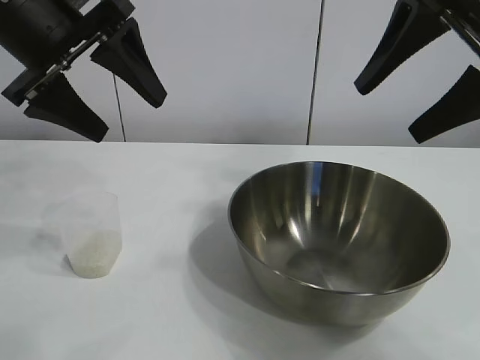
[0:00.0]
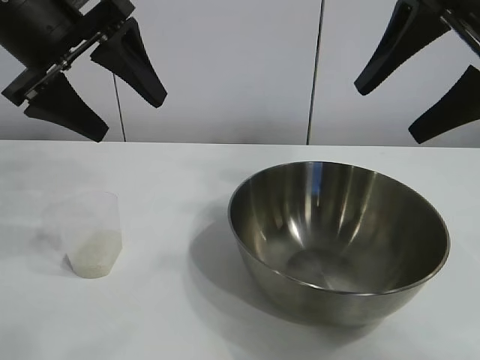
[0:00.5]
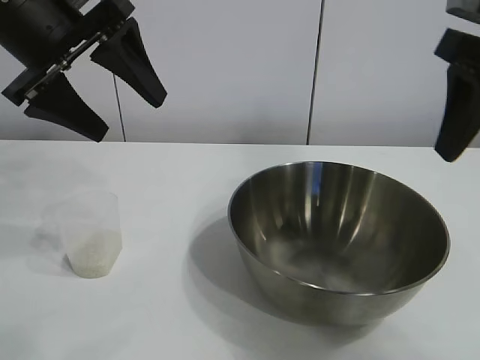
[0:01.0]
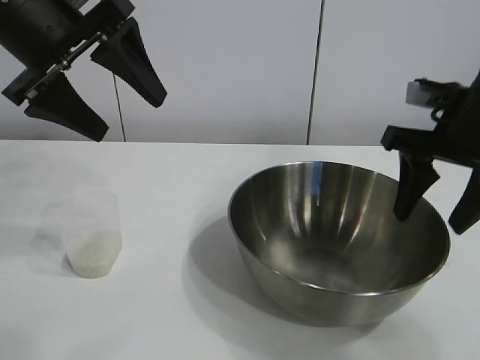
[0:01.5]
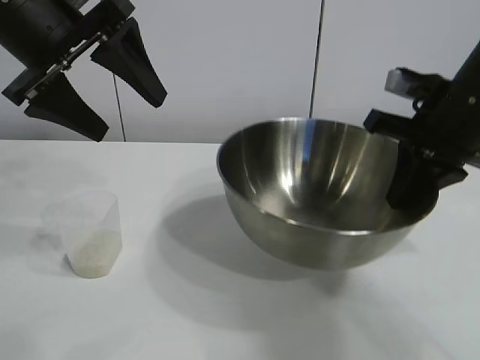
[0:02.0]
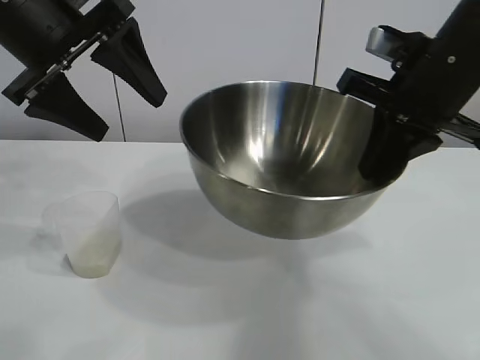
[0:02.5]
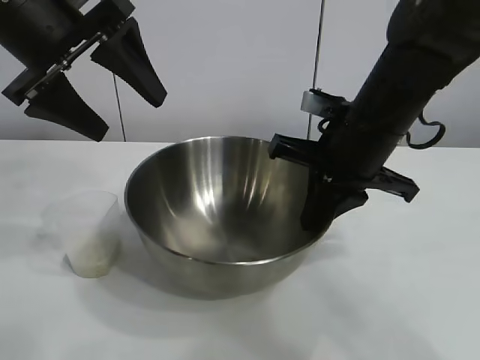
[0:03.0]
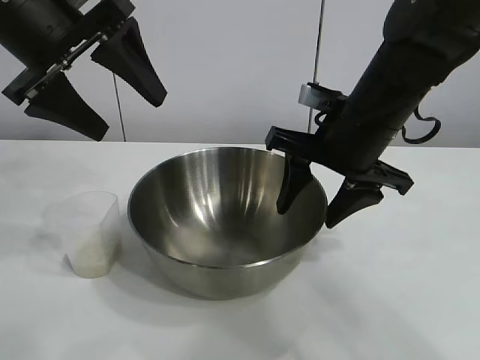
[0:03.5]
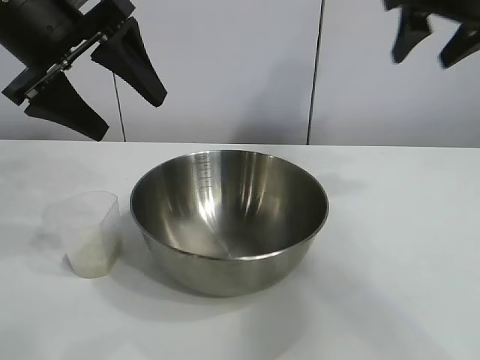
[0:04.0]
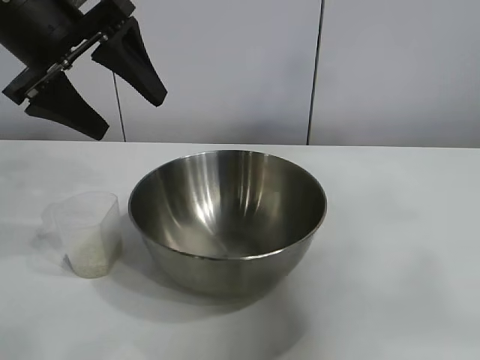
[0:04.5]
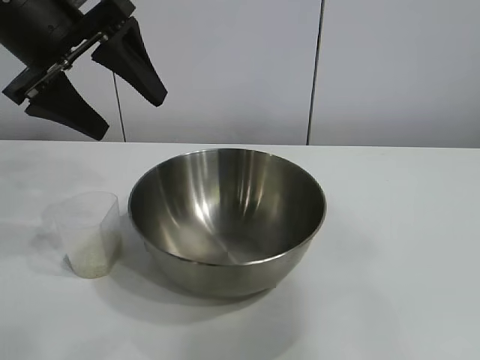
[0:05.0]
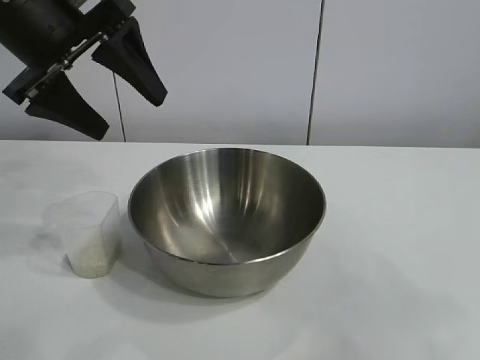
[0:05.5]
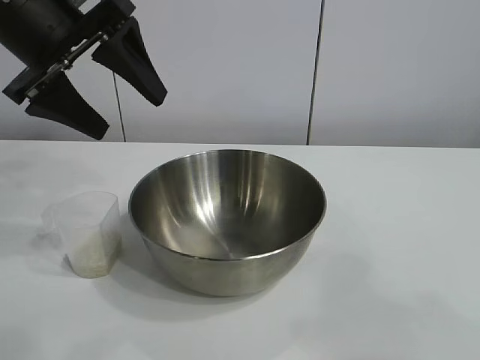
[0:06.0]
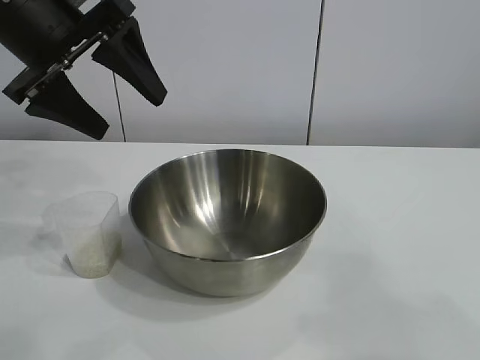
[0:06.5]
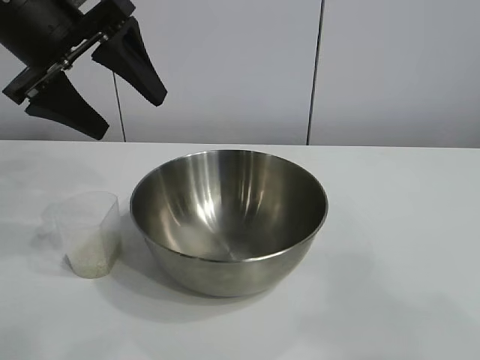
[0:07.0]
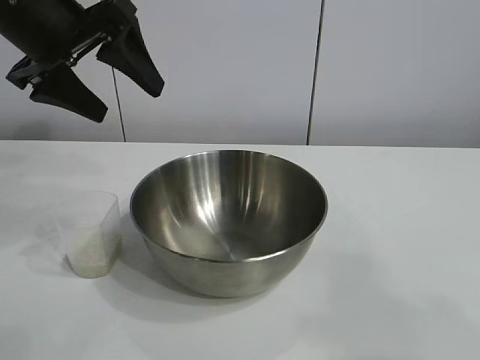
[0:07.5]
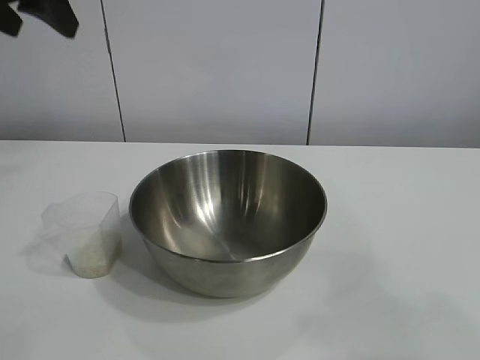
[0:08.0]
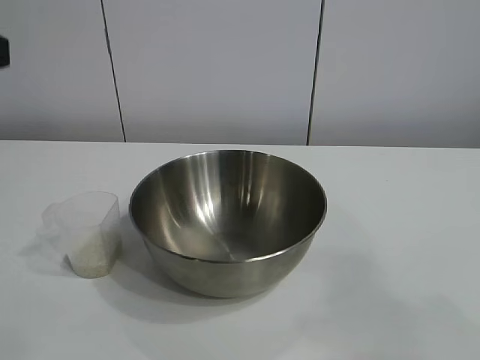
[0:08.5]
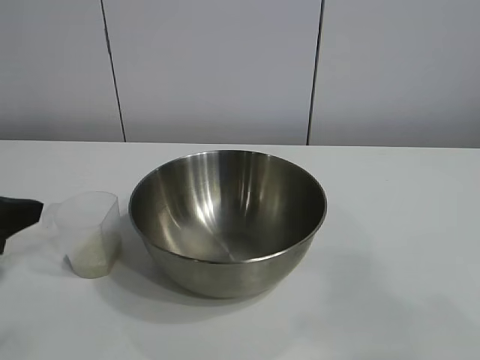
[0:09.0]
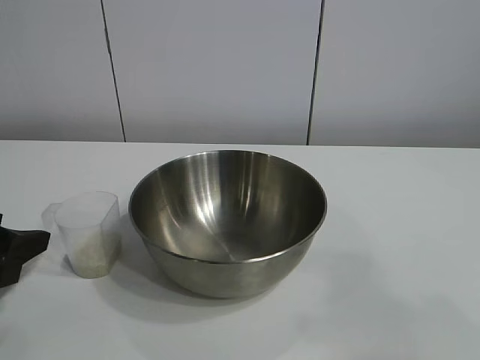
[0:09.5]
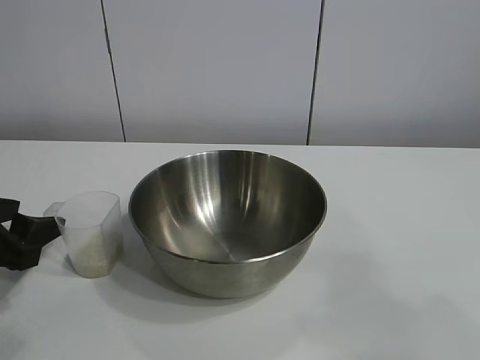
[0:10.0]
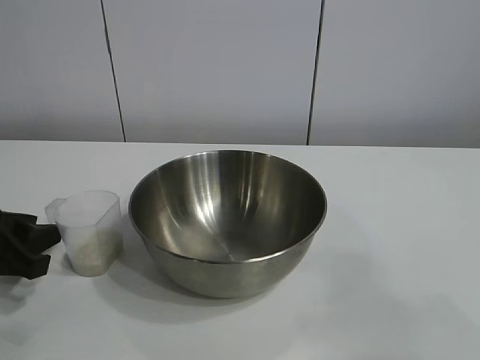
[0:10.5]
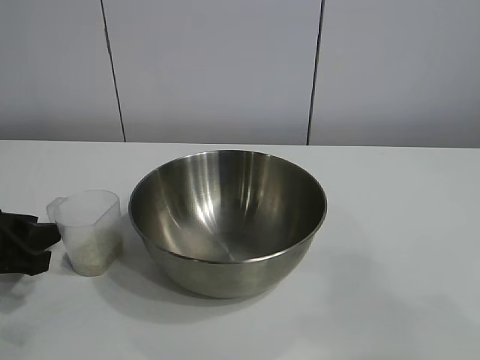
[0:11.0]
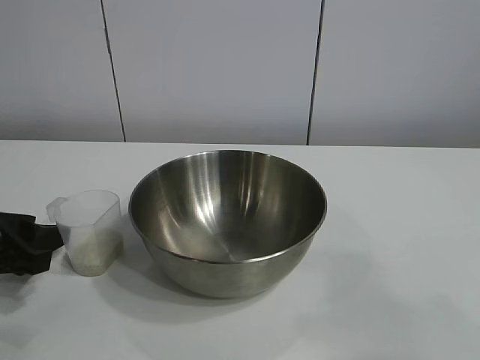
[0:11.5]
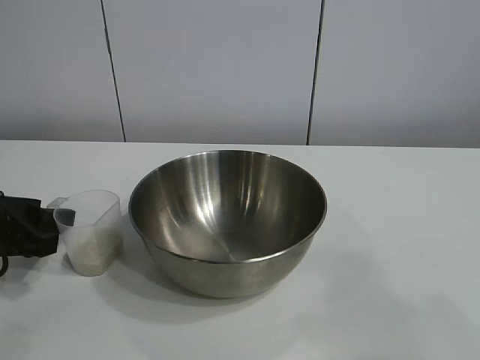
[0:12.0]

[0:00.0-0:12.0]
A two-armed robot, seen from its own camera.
Task of the whole recording: the right gripper grasp the rice container and place it in the center of the table, the left gripper grasp the rice scoop and pour the rice into the rice container.
Step, 0:01.0 to 0:03.5: Move the bowl in the center of view with right gripper.

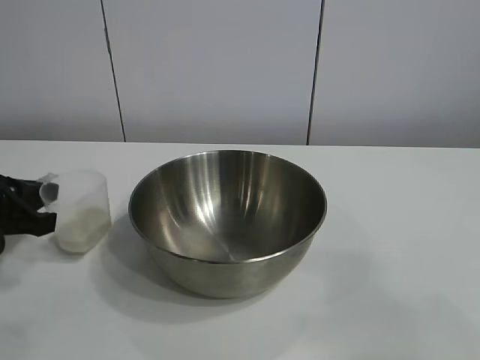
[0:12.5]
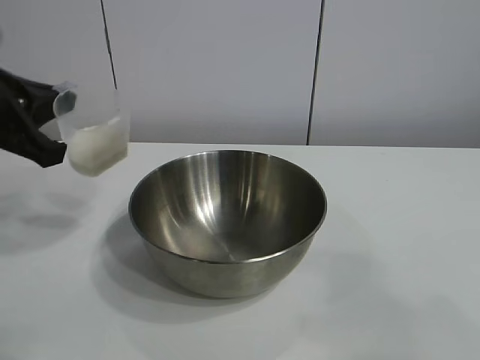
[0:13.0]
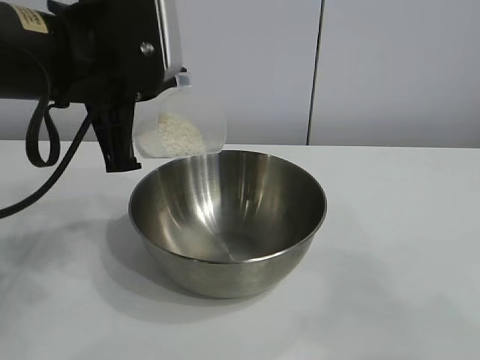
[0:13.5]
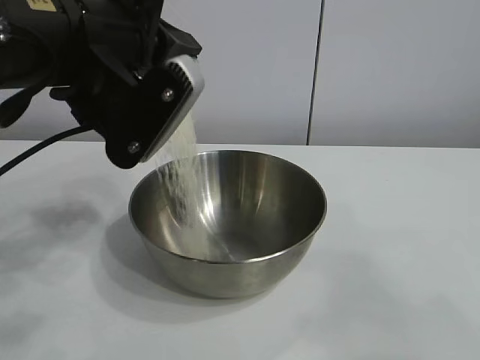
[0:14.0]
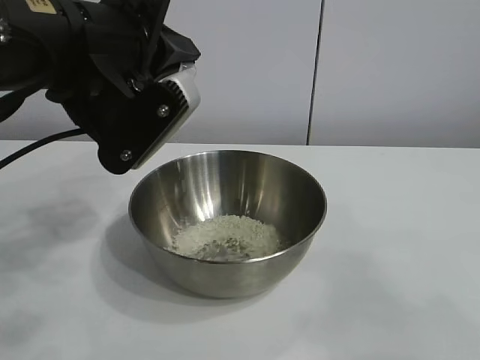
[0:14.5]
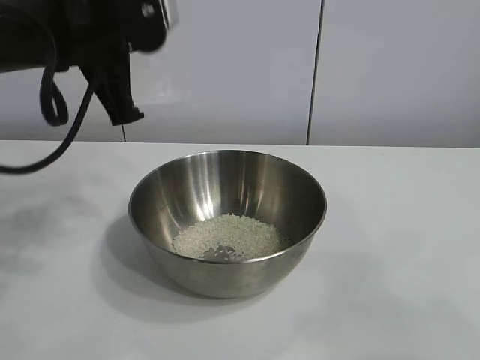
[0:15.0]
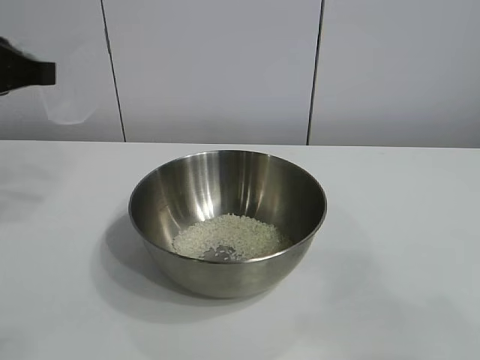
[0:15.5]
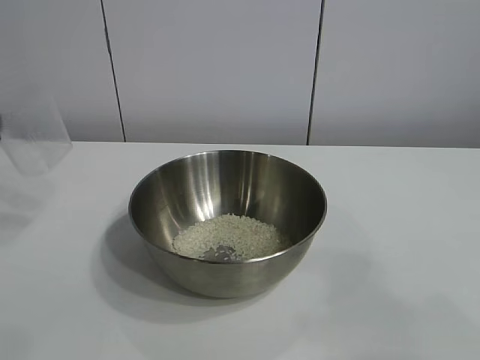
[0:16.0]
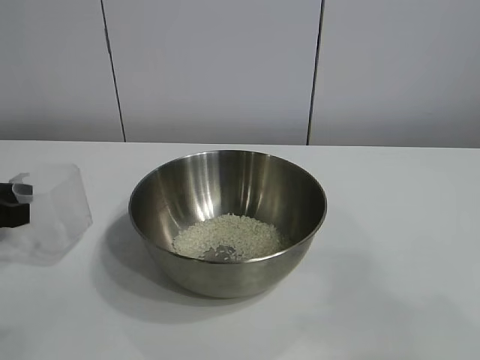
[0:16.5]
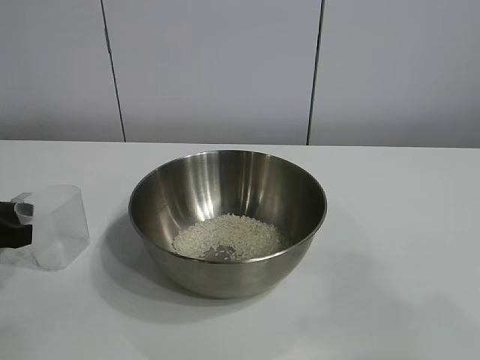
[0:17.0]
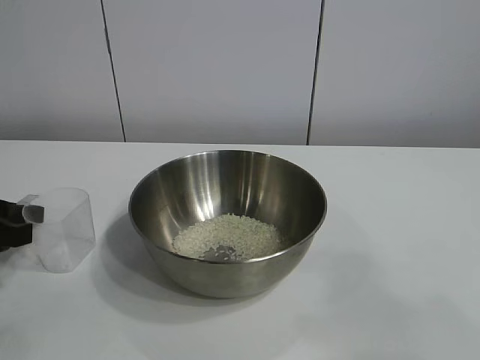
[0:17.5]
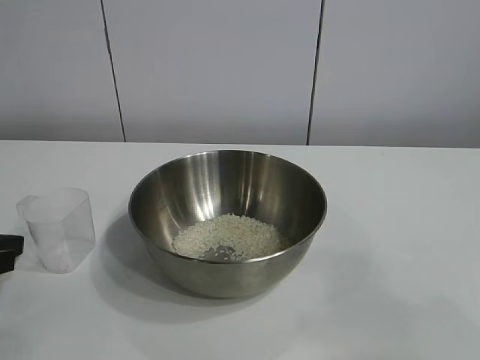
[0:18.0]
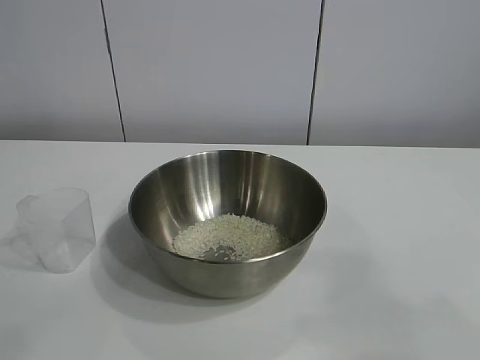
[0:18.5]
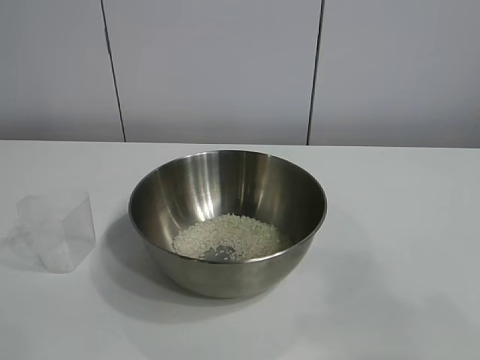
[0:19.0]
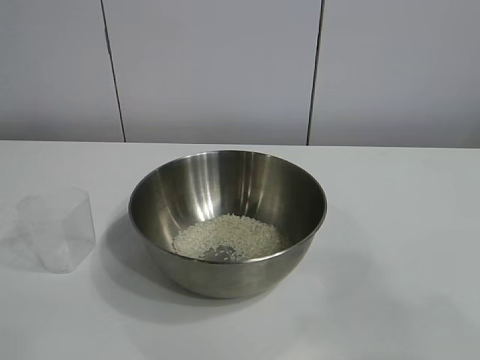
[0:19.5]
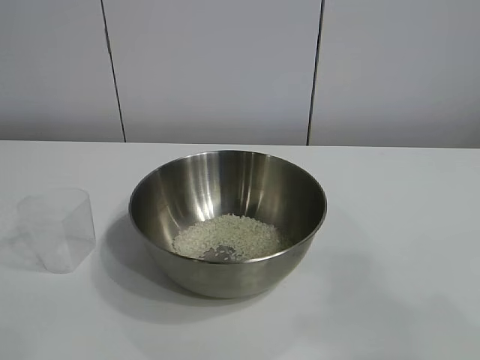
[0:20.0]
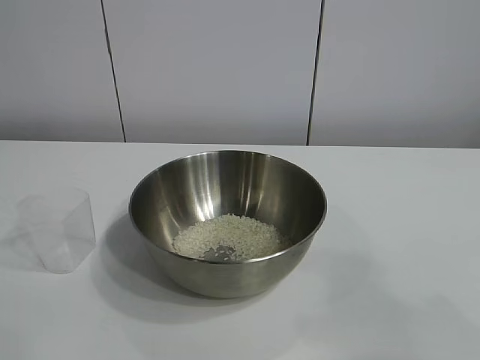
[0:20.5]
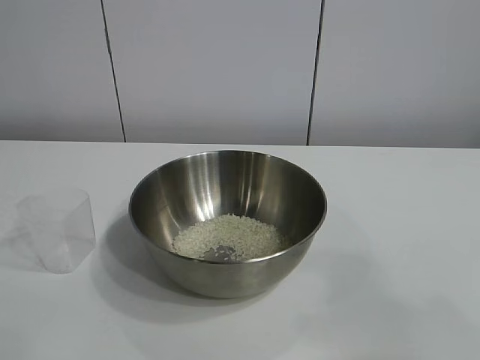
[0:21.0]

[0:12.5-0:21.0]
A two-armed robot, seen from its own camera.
Task of the whole recording: the right gripper grasp the rice container and place it in the center of the table, the left gripper grasp the rice scoop and pour the rice into the rice container.
Step, 0:12.5 to 0:14.5: Pour the rice from the cup into the bowl with the left gripper.
Step, 0:15.0 to 0:17.0: Place the cup on the table with the left gripper.
